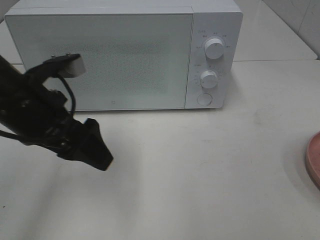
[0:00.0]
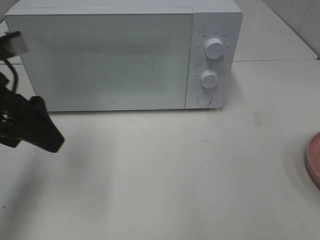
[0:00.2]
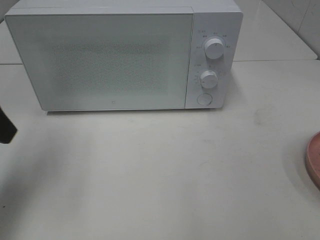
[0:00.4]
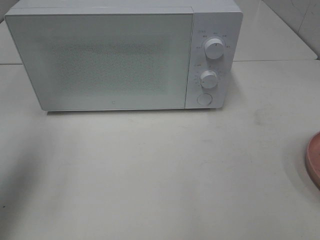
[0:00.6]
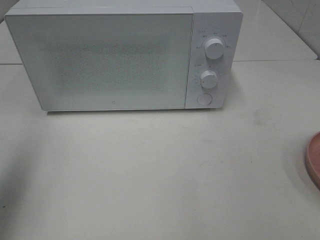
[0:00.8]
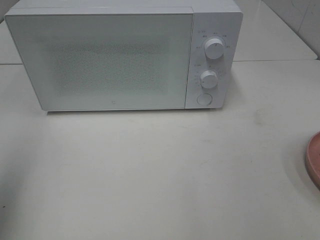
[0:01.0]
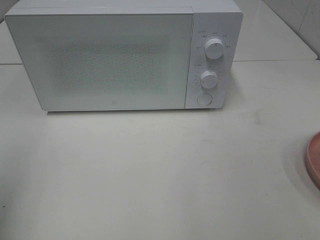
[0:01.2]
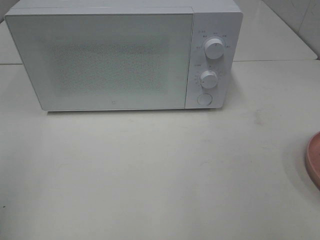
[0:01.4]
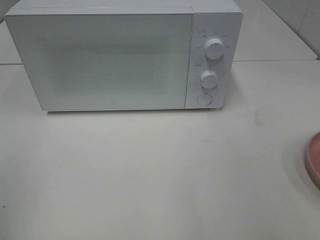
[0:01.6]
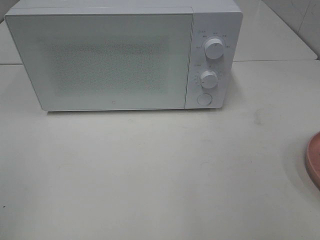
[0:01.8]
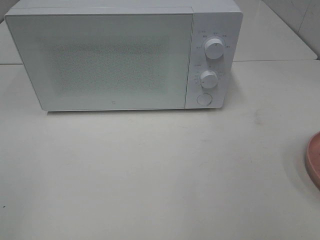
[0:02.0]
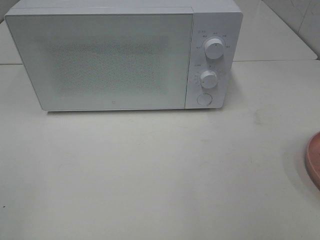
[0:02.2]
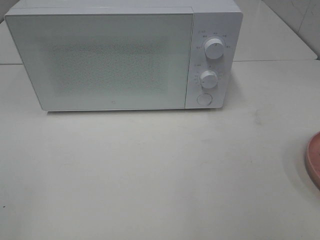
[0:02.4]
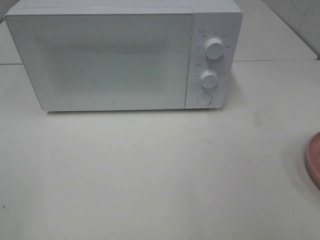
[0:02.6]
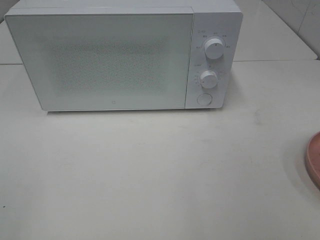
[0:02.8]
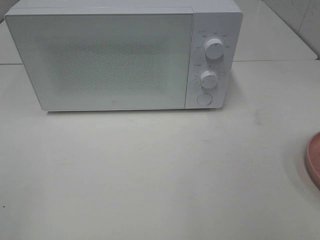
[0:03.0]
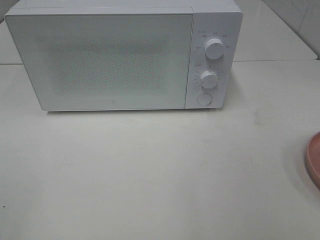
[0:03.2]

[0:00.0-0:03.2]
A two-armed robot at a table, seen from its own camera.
Task of the whole recording: Heat the burger.
0:00.0 to 0:01.6: The left gripper is displaced backward and to the left by some 25 cm.

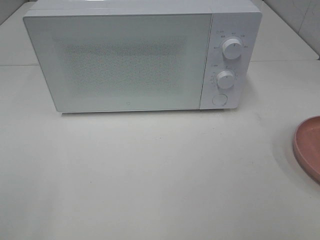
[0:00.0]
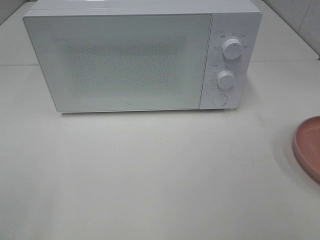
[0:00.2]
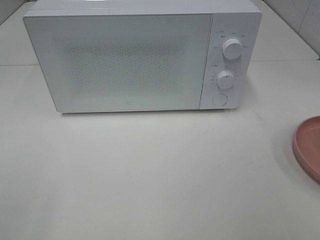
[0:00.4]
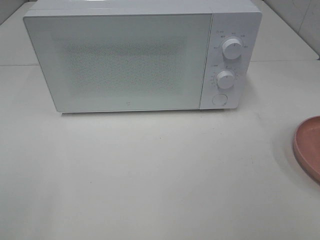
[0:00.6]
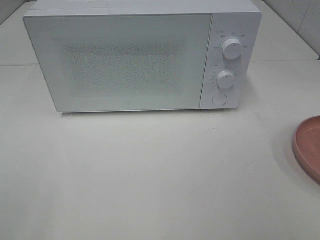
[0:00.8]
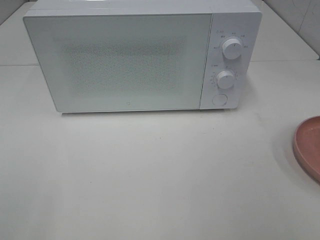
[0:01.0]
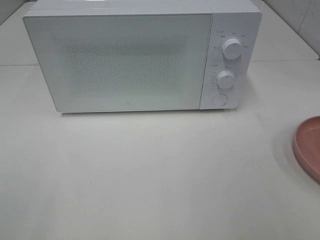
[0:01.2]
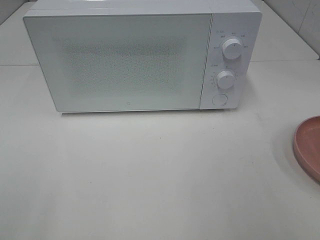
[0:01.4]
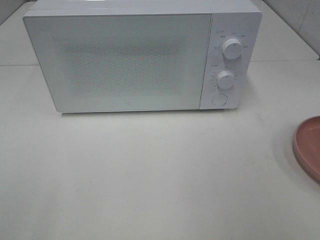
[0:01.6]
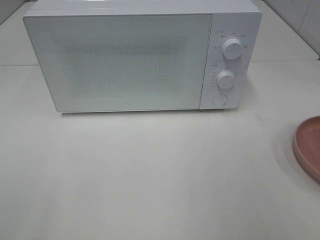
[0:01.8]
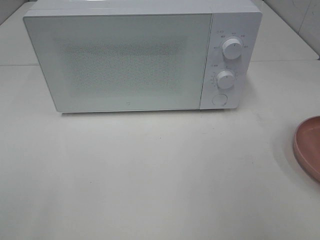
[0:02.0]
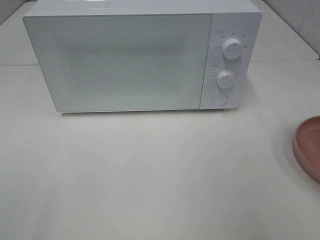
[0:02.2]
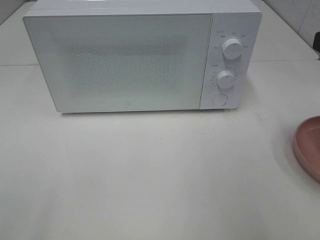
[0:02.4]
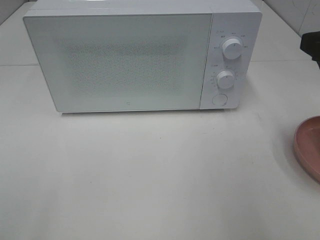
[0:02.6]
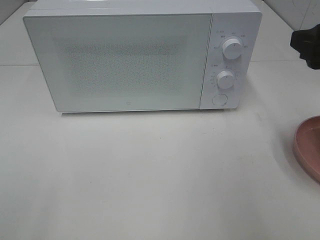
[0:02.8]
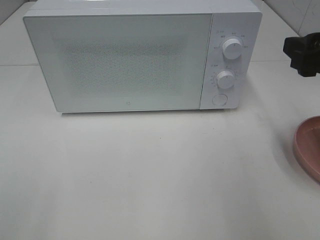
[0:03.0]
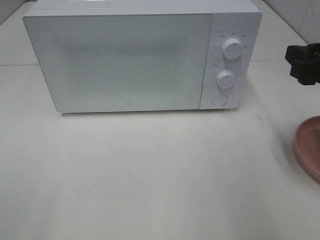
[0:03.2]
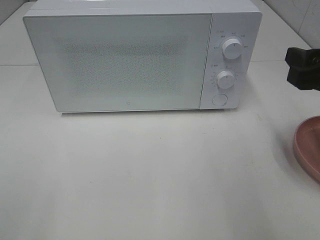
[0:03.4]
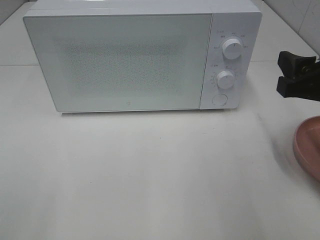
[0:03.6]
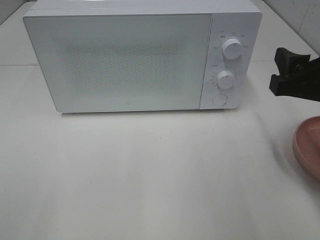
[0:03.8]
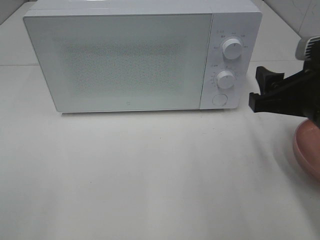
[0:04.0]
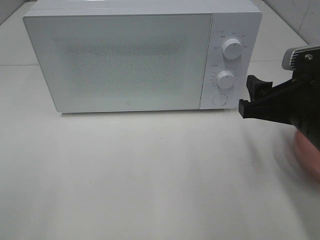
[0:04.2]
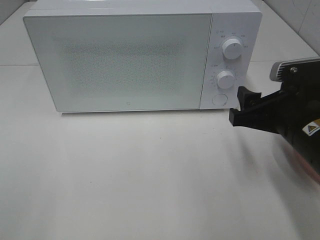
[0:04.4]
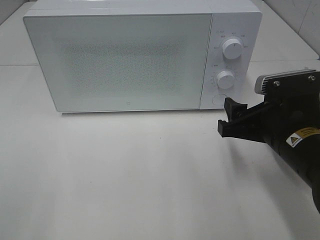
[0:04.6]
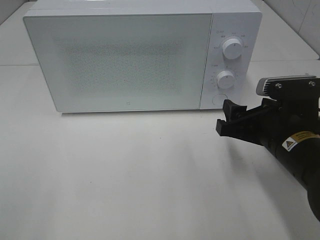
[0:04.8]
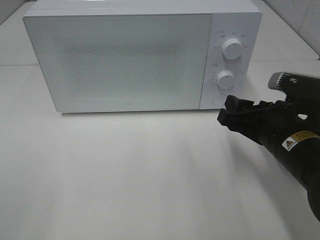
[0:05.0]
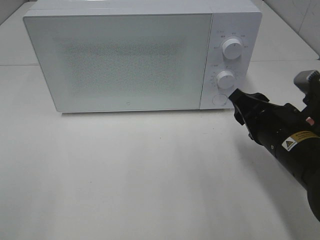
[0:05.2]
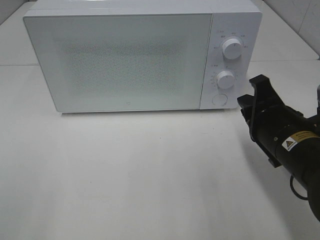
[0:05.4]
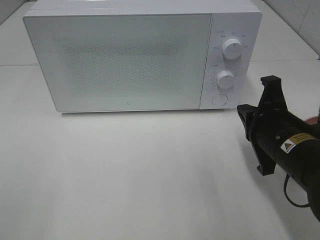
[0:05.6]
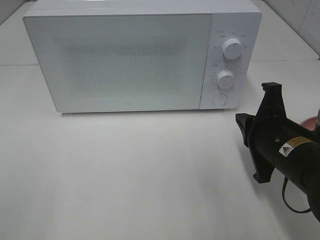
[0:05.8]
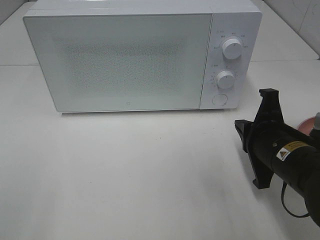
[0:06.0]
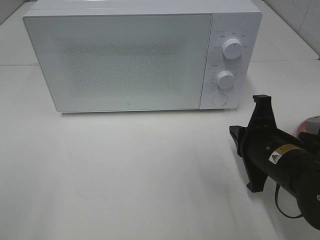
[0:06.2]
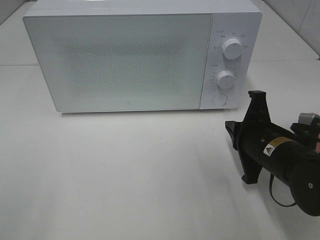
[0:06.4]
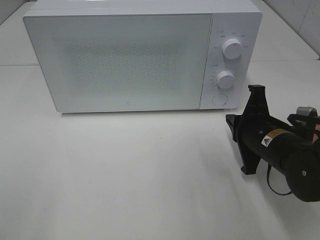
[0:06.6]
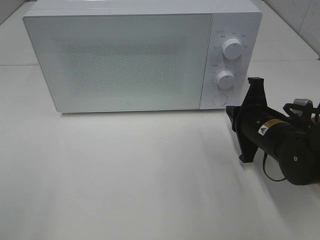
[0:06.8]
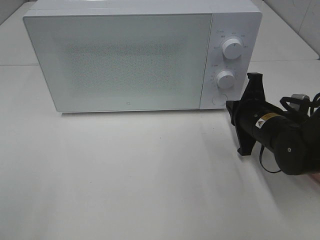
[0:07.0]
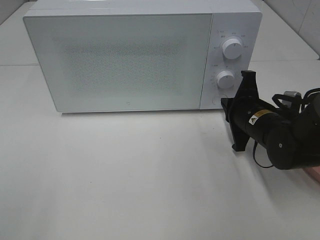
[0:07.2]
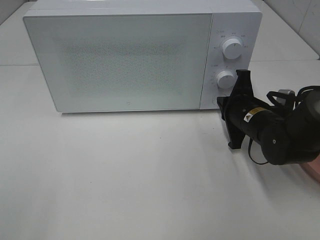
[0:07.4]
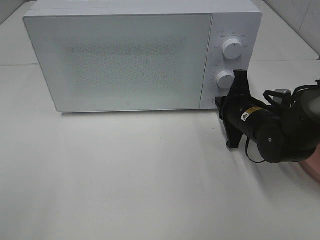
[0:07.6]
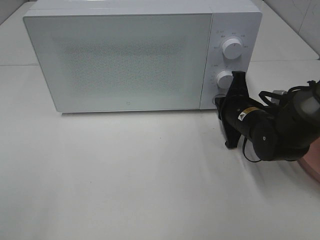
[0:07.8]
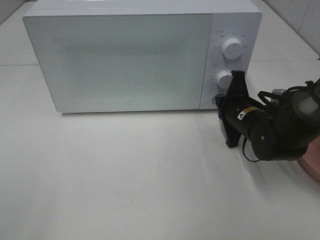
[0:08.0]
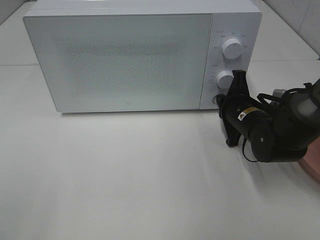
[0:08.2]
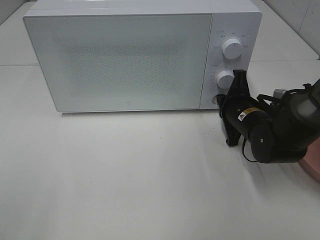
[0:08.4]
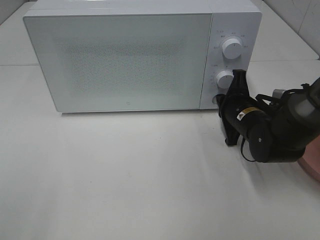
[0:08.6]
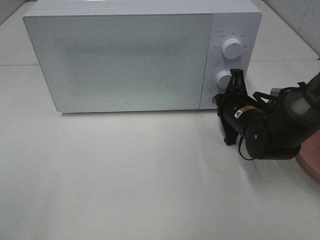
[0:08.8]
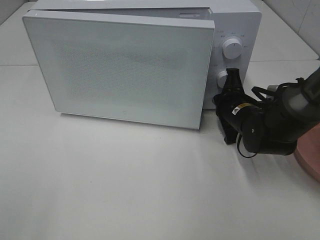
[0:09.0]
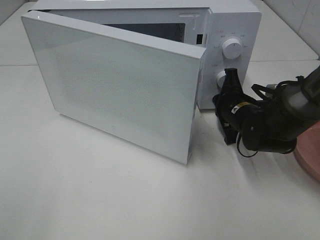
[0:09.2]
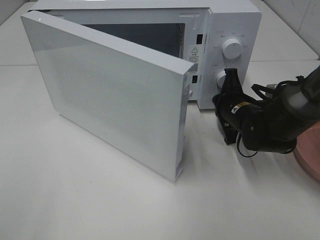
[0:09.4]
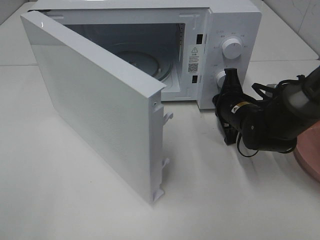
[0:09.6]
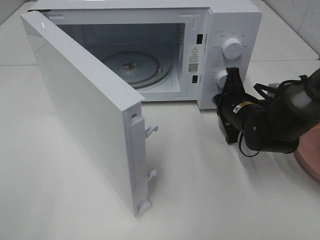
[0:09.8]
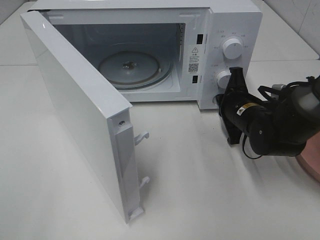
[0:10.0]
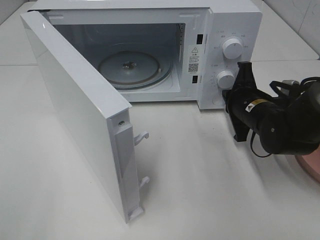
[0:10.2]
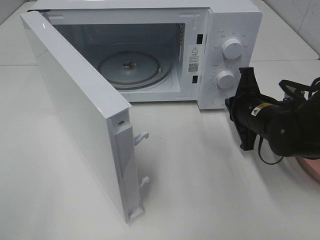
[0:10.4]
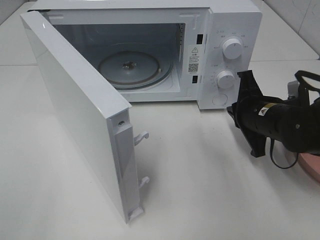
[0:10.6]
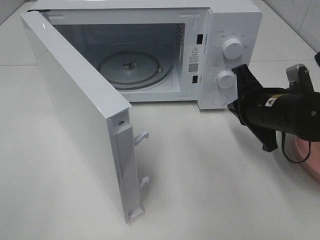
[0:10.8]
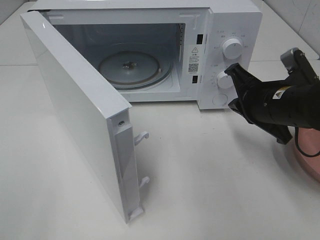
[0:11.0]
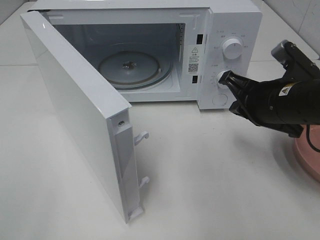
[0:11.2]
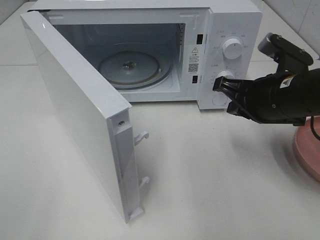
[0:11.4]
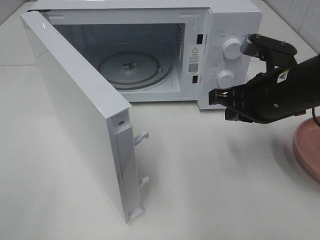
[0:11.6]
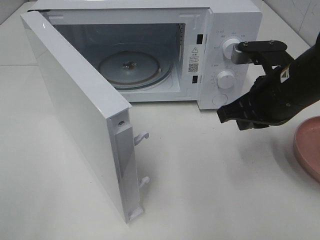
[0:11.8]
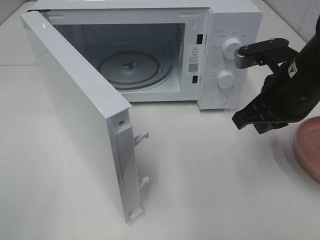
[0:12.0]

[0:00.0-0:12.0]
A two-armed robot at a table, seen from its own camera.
Task of the whole recording: Heat the burger.
Step, 0:00.0 to 0:10.0: Right hand: press the switch.
0:01.6 to 0:03.0: The right gripper heads forward and downward, covering approximately 15 cm.
0:03.0 to 0:04.4: The right gripper goes approximately 10 cm downward and to the left.
0:04.4 to 0:06.0: The right gripper closes.
0:06.0 to 0:07.6: The right gripper goes roughly 10 cm forward.
0:07.6 to 0:09.0: There are only small adjustments of the grippers.
0:10.4 to 0:12.0: The right gripper moves upward, about 10 cm.

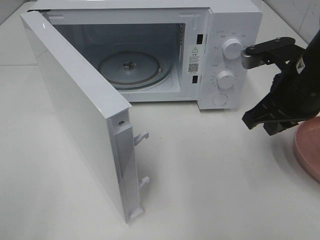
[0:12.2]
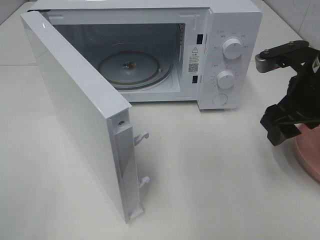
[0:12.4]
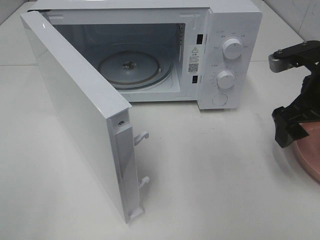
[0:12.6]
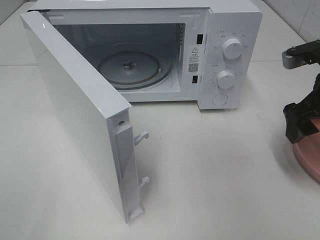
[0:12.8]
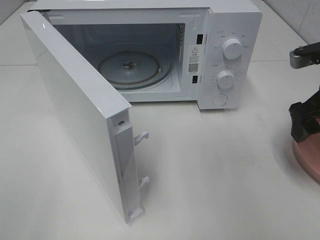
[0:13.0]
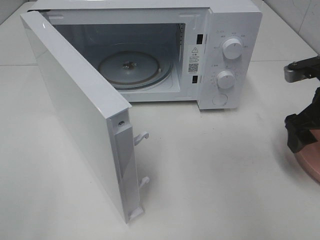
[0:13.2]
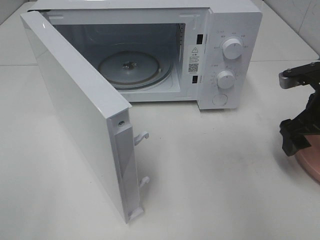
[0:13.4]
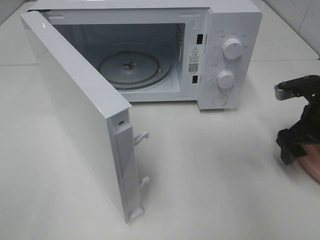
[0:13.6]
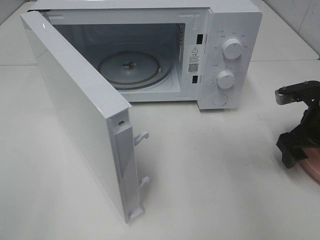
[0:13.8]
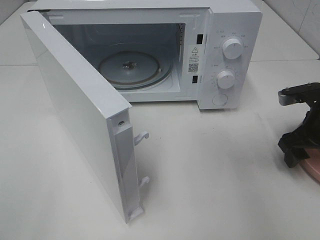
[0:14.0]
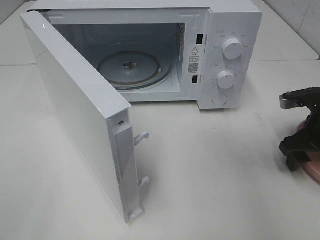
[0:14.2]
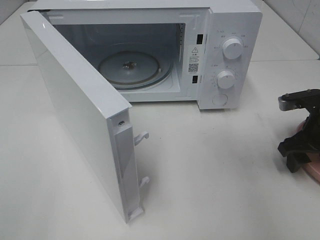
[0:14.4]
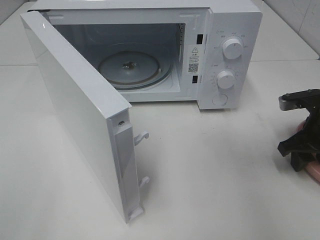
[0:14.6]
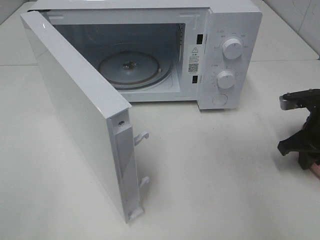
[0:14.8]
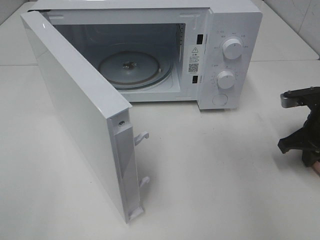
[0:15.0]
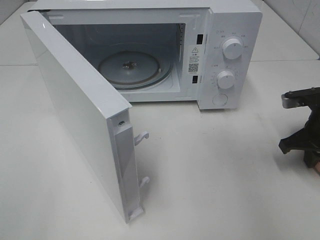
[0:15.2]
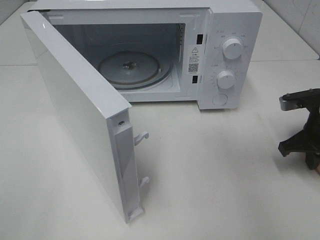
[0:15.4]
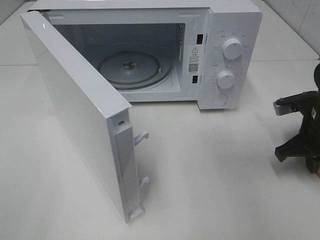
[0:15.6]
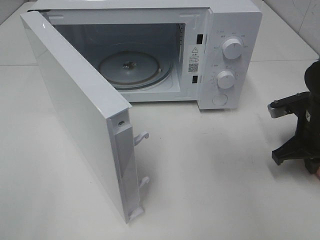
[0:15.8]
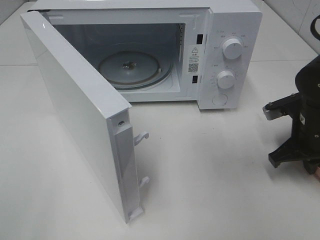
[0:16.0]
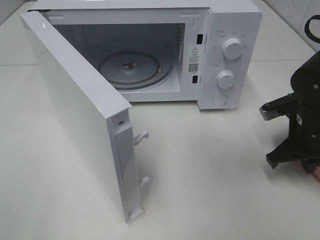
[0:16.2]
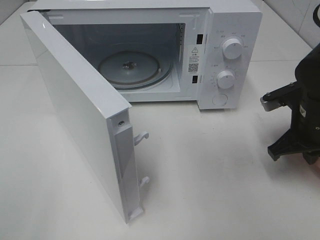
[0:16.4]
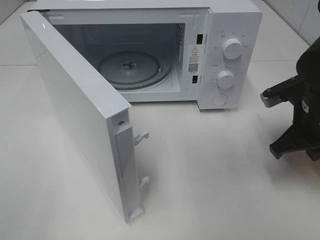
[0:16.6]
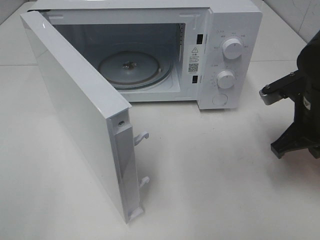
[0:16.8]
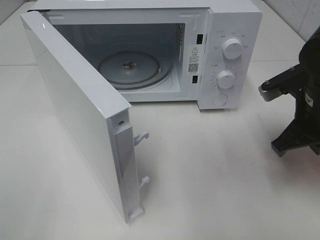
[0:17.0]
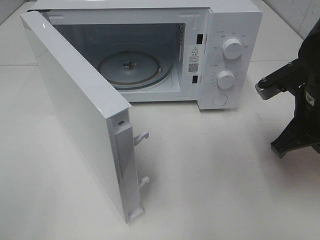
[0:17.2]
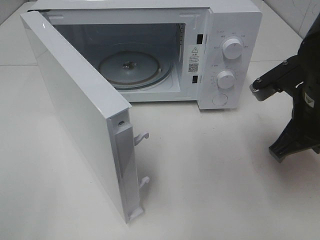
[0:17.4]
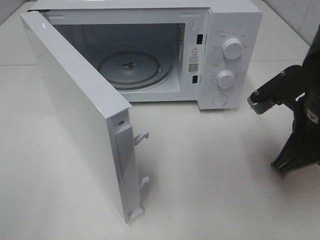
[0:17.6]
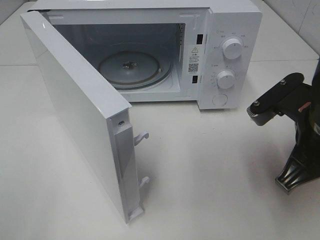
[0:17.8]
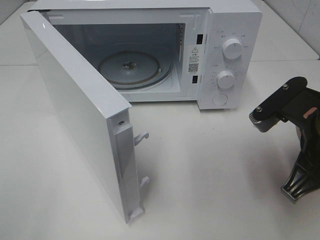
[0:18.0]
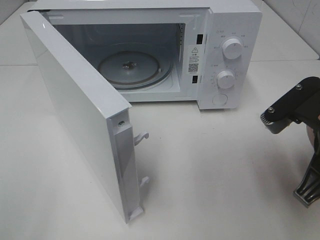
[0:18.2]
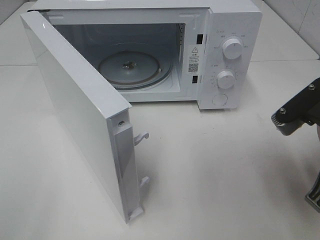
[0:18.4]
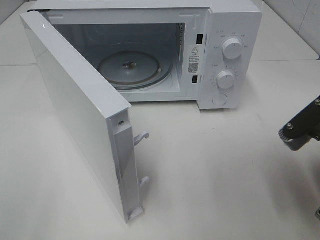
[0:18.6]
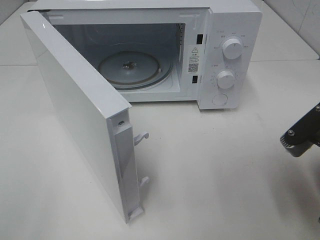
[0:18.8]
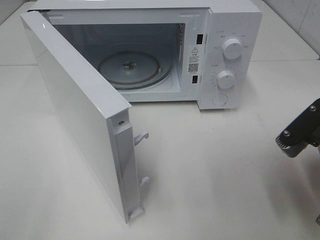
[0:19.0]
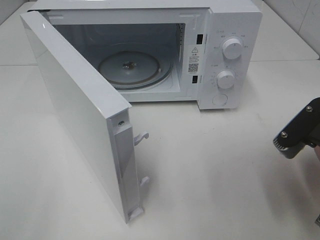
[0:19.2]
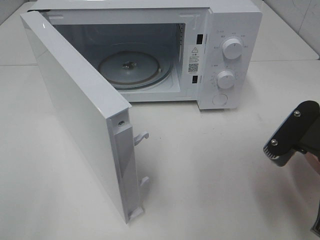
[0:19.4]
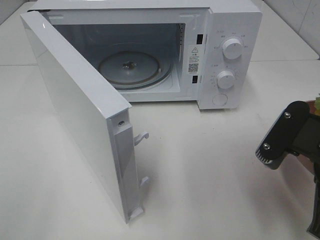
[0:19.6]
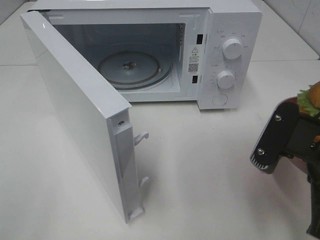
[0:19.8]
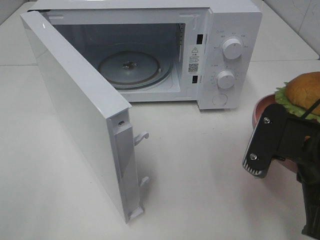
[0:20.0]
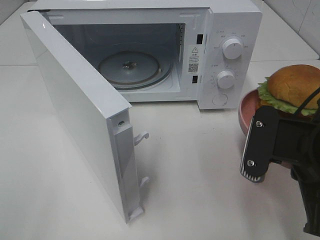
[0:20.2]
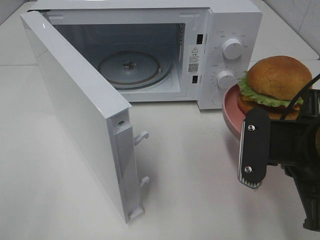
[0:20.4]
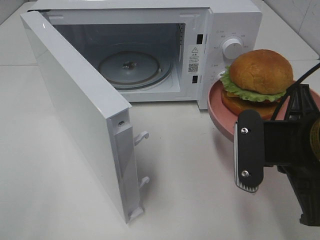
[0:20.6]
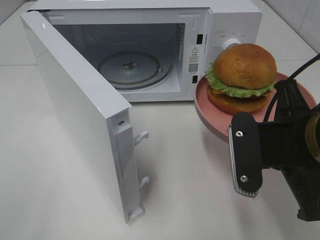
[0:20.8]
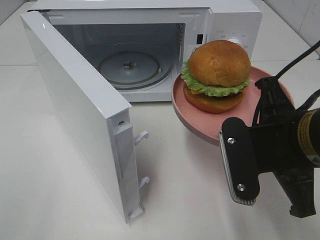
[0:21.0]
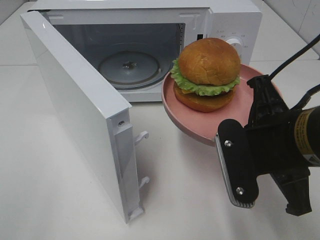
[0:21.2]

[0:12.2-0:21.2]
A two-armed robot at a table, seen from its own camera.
Task of the whole recording: Heat the burger.
Step, 0:12.2 to 0:15.4: Right hand: grab the plate with the hamburger.
0:12.2 to 0:13.8: The right gripper heads downward and to the right, covering about 10 cm, and opens.
0:13.8 to 0:15.2: The right gripper closes up.
0:15.2 to 0:16.6: The right gripper shifts roughly 5 cm to the left.
0:16.6 to 0:18.2: The right gripper heads backward and upward, covering about 10 cm.
